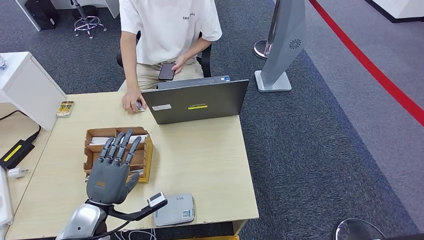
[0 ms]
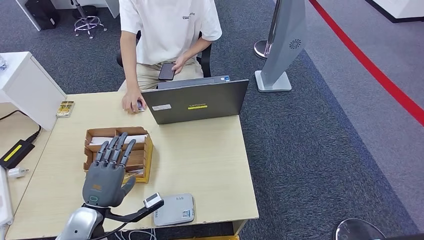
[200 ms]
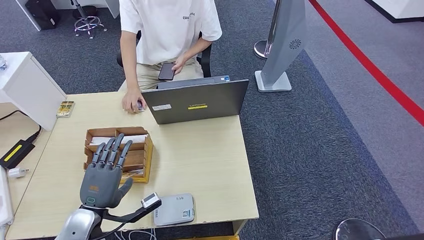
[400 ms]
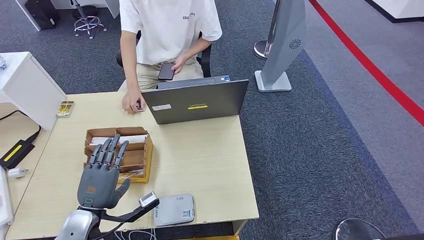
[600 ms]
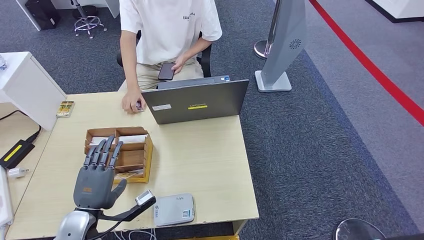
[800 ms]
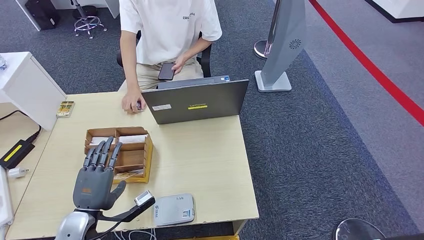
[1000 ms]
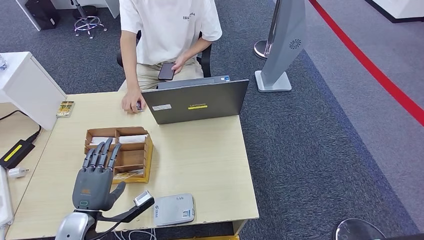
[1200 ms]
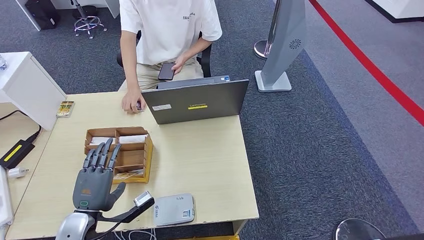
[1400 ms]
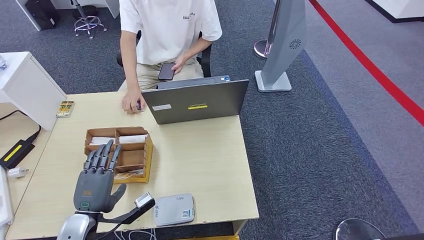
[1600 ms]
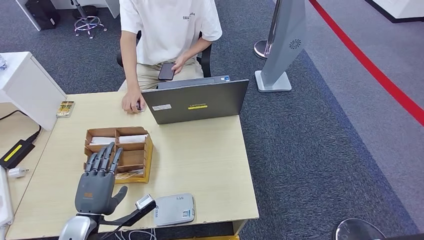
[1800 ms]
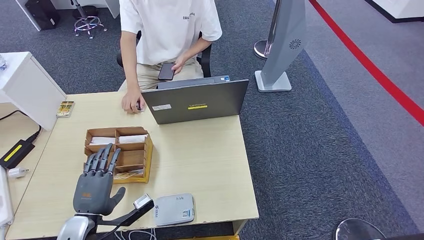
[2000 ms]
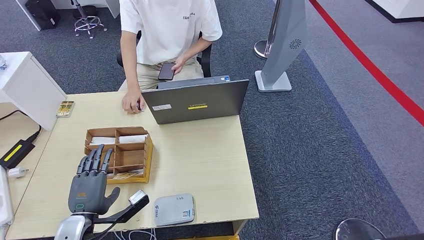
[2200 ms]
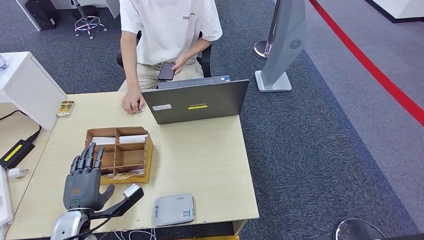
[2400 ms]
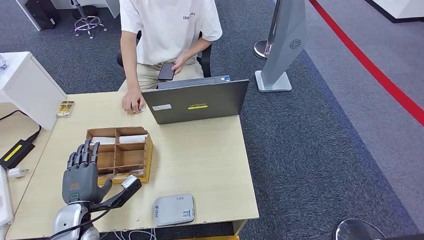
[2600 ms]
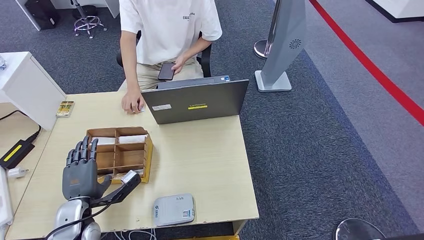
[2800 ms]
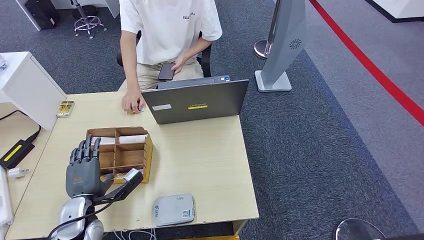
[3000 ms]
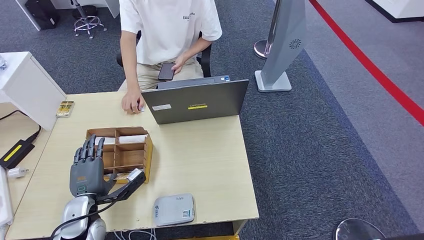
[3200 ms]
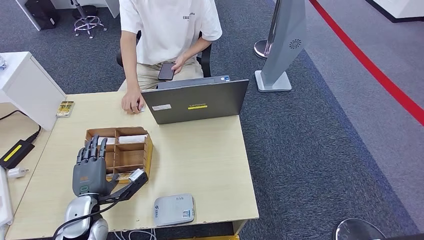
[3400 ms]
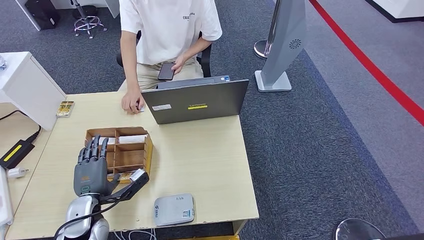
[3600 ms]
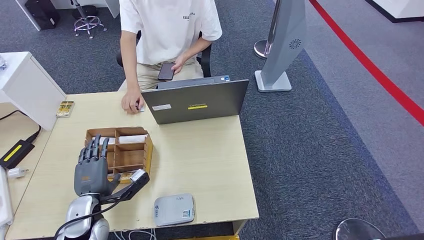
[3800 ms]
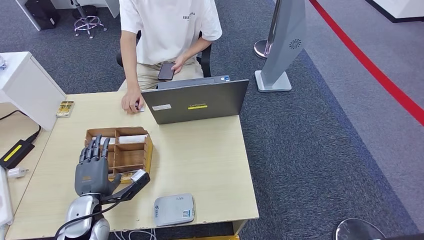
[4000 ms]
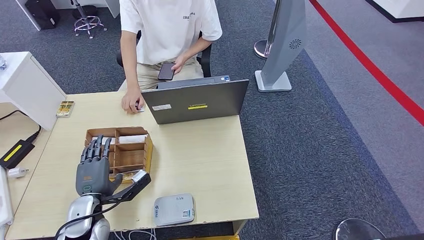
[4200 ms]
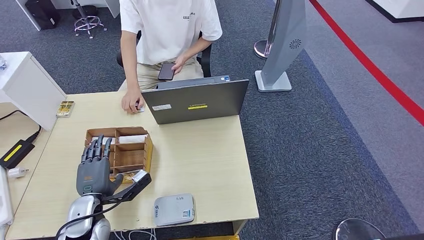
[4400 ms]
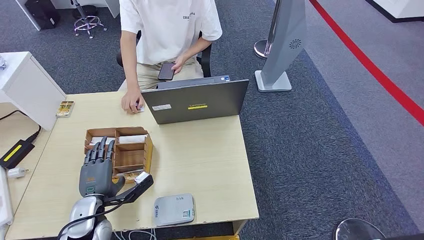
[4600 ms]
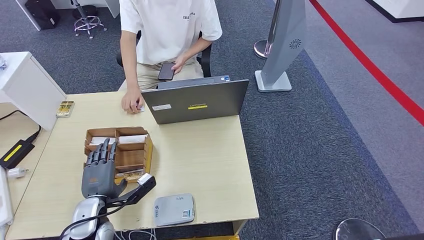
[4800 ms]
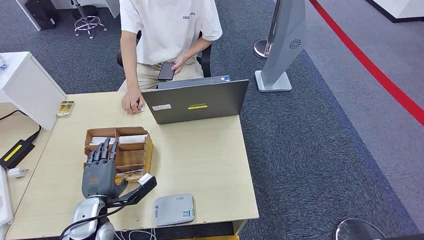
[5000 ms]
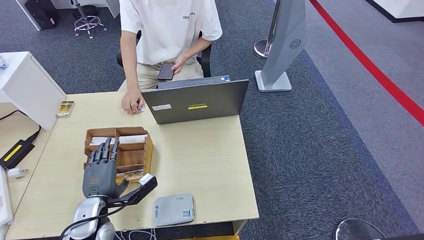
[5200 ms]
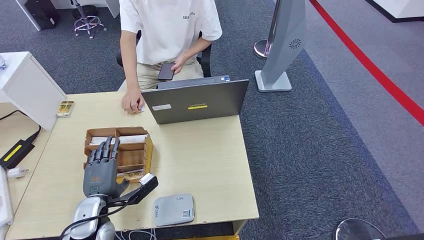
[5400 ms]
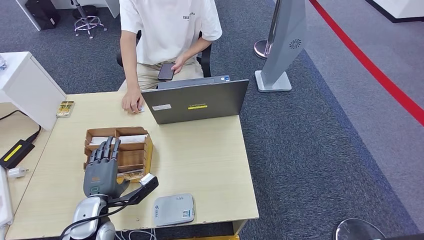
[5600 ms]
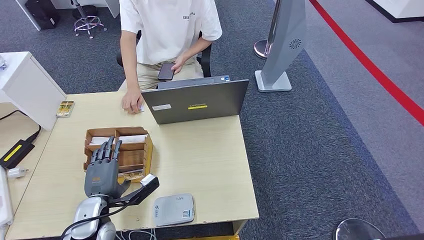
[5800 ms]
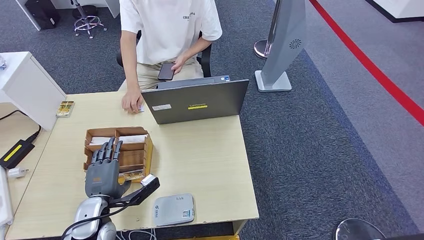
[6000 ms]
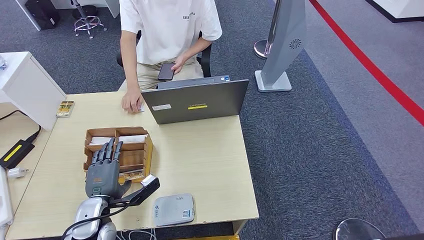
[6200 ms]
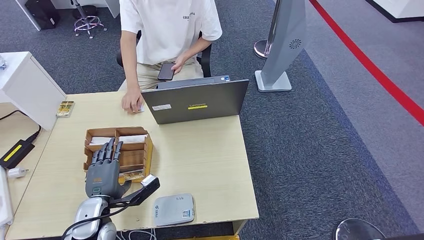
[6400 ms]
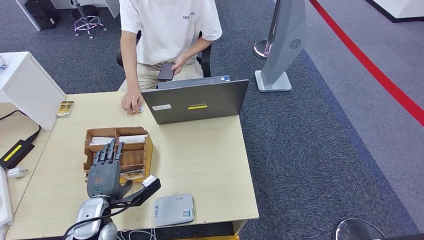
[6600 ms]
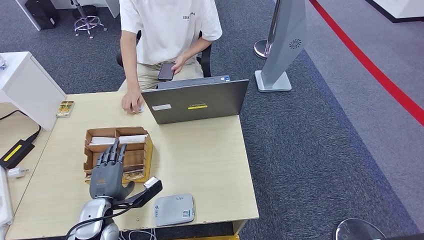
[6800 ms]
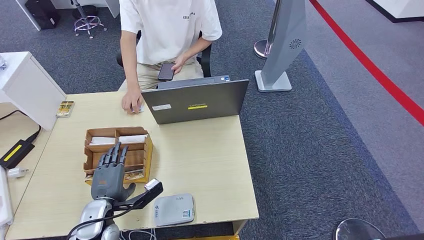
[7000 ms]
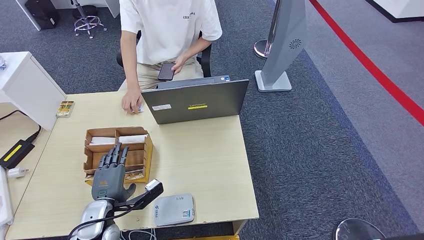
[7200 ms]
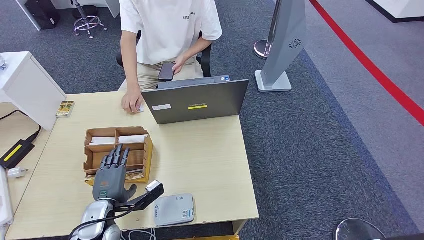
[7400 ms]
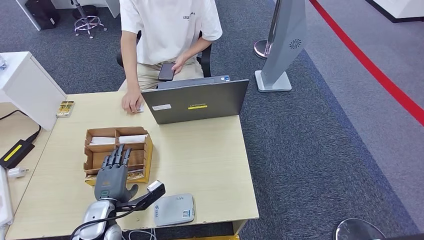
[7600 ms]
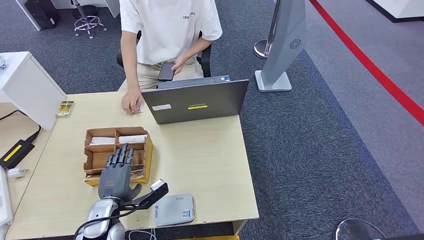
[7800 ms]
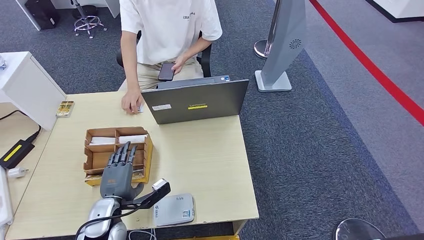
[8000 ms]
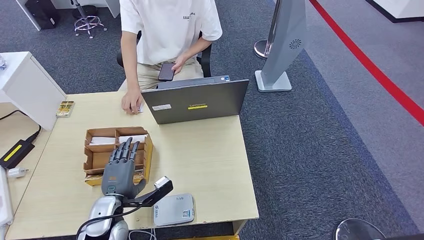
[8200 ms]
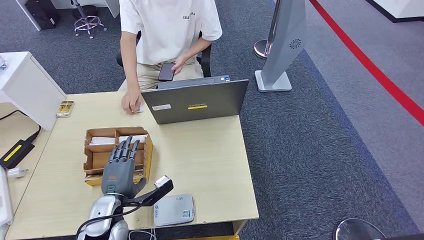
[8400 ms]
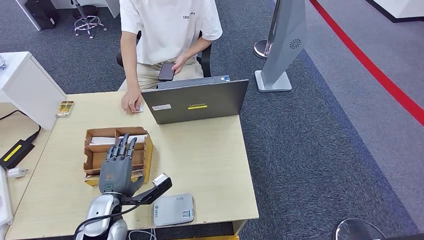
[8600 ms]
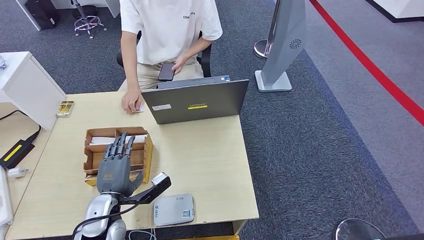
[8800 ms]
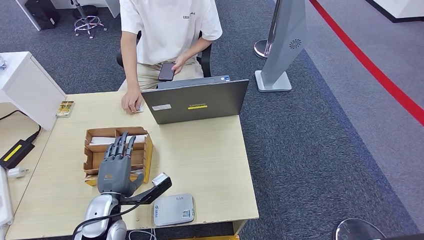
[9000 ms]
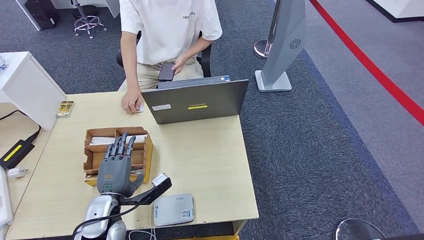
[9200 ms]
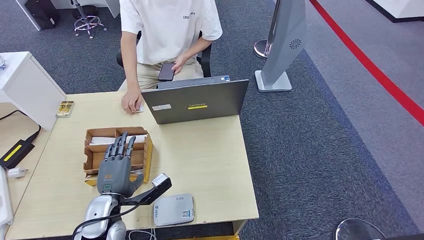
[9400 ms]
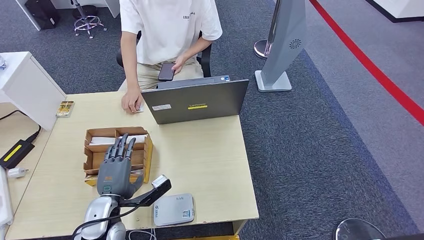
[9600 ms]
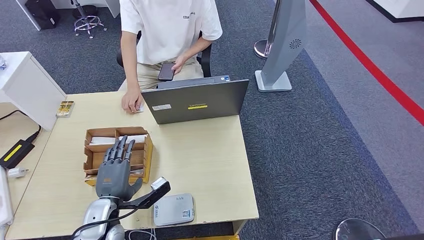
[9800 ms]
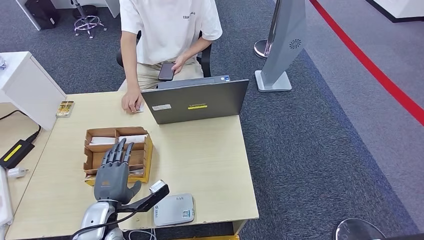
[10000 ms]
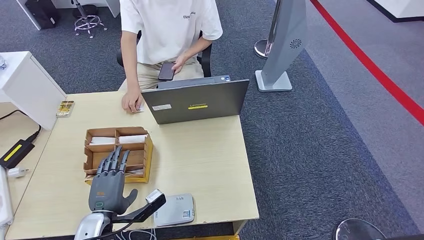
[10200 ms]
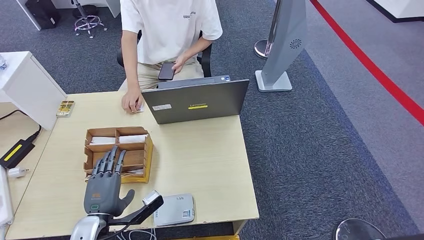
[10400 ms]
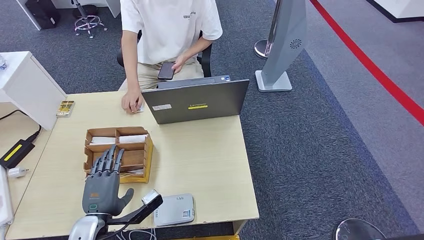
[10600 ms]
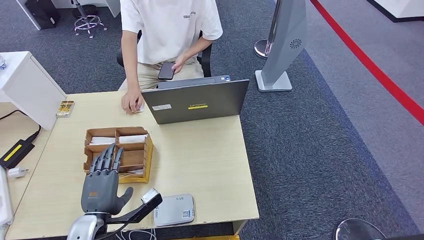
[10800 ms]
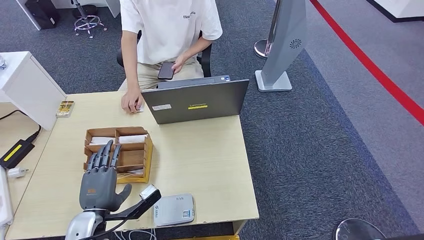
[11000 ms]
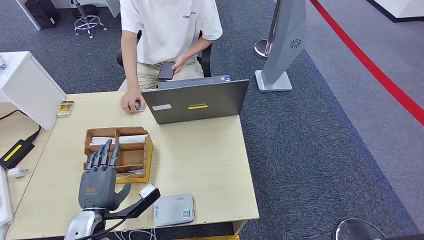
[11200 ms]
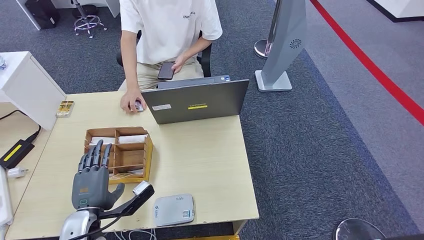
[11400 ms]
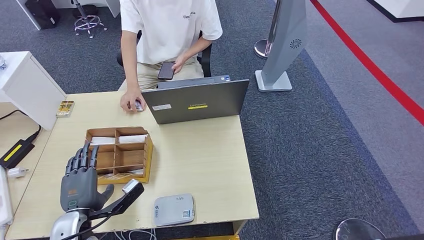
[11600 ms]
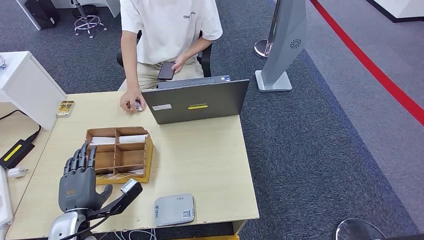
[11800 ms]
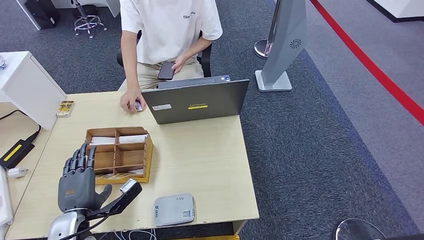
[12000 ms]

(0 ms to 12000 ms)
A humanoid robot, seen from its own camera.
0 ms - 1600 ms: The hands make only small movements.
1600 ms - 3000 ms: The left hand ends up approximately 5 cm from where it was.
3000 ms - 7600 ms: There are only small adjustments of the hands.
7600 ms - 9000 ms: The hands move only a little.
9000 ms - 10400 ms: The left hand changes place by about 5 cm.
10400 ms - 12000 ms: The hands stay close to where they were, moving slightly.

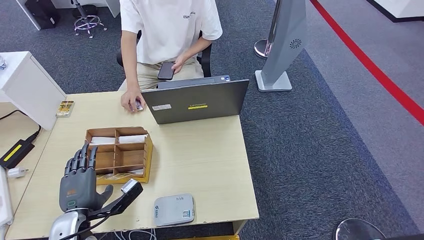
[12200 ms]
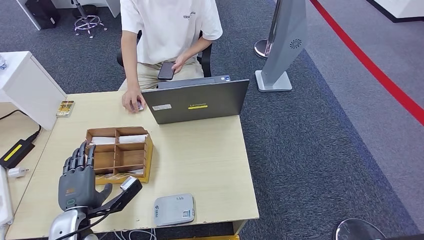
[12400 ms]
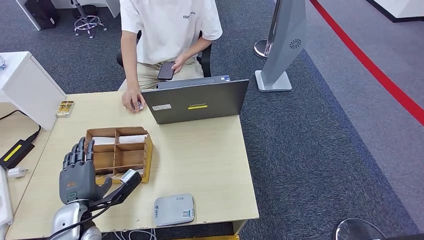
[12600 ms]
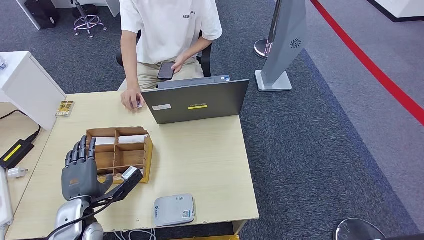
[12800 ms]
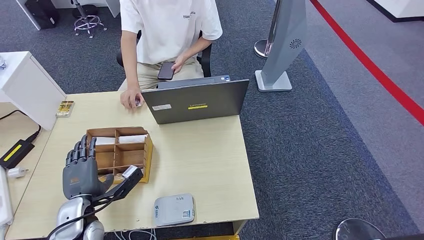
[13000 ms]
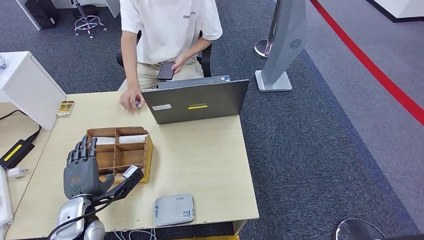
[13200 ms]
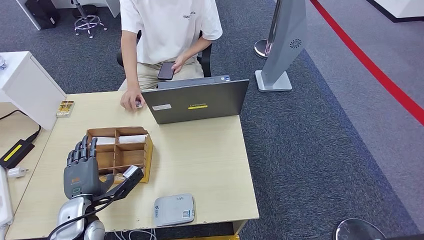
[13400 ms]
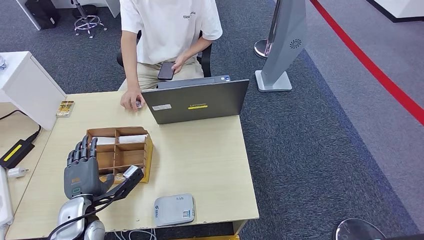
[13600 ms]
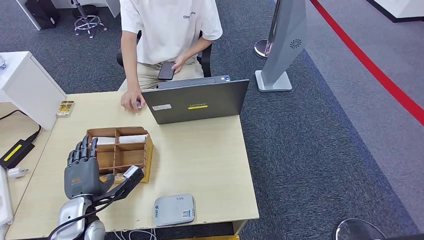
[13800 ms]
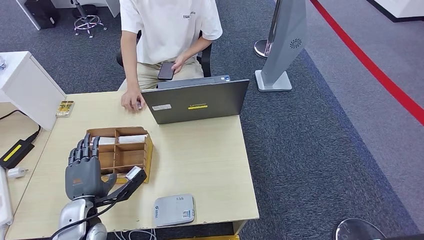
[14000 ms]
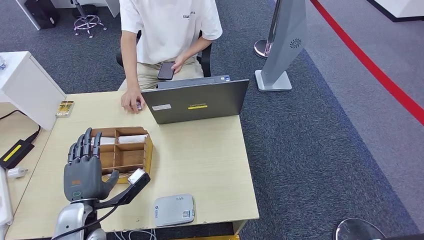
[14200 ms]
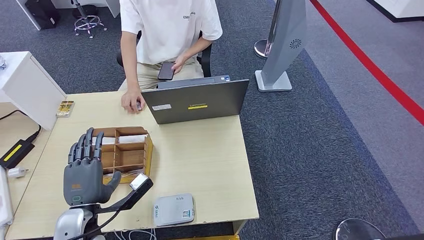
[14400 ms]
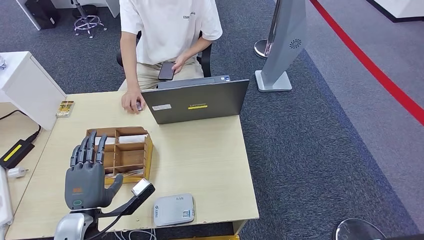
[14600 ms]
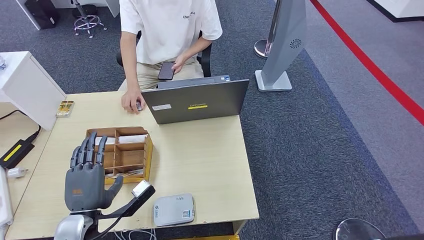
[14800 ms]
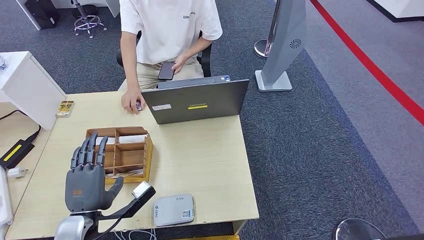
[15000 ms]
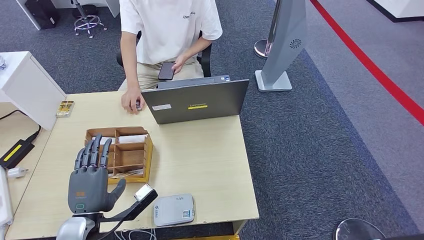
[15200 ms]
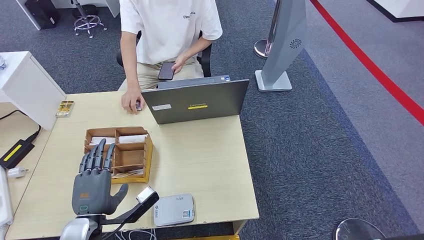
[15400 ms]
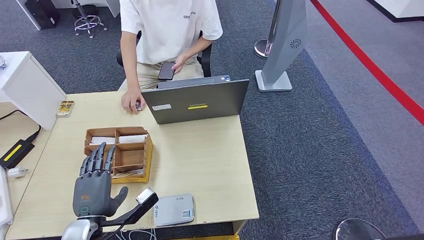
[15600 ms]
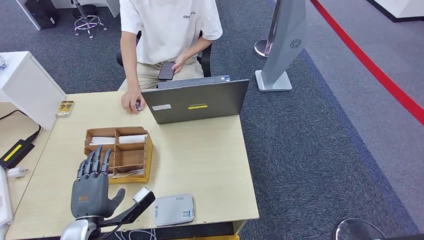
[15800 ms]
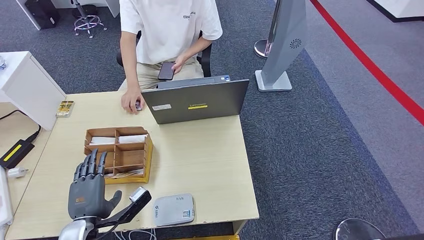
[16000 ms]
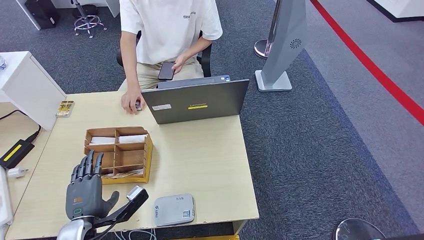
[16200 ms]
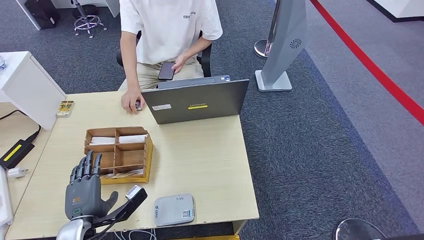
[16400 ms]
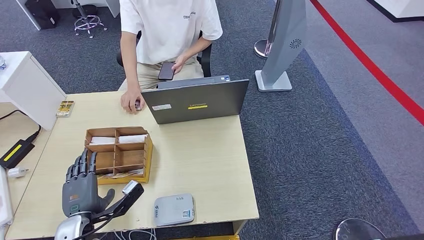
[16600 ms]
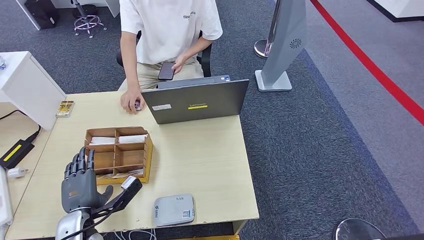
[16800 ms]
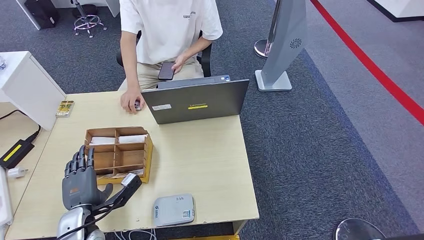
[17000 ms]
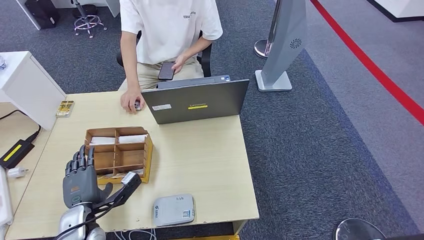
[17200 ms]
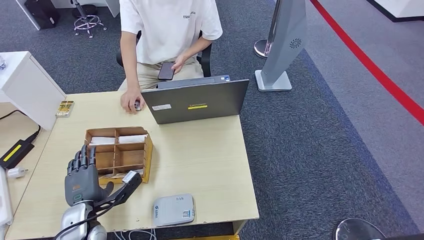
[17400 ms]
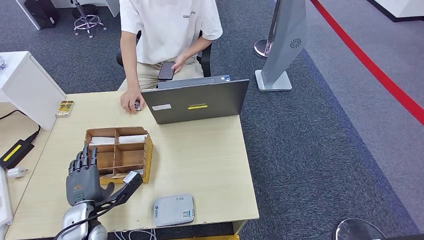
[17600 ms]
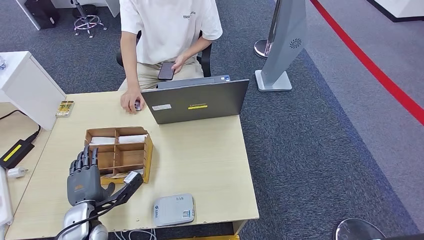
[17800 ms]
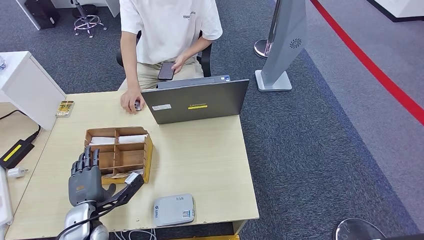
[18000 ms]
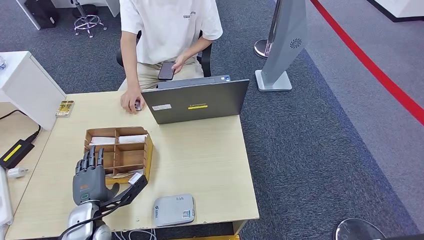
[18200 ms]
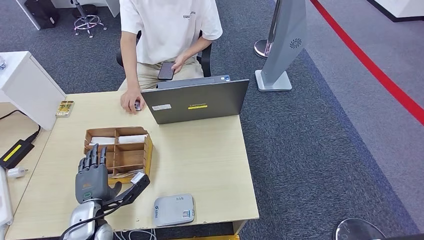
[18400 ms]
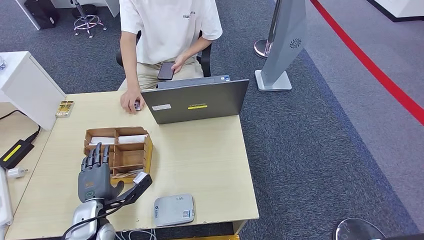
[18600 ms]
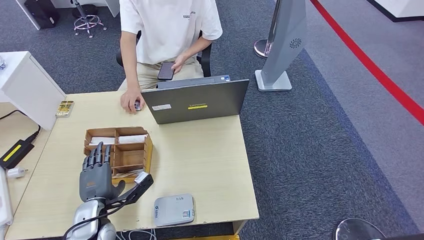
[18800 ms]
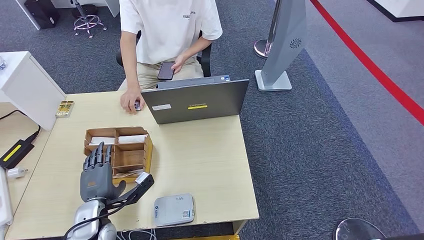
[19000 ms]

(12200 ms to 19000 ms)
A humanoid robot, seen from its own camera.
12200 ms - 13600 ms: The hands move only a little.
13600 ms - 15000 ms: The left hand heads backward, covering roughly 5 cm.
15000 ms - 16200 ms: The hands stay close to where they were, moving slightly.
16200 ms - 17600 ms: The left hand ends up roughly 5 cm from where it was.
17600 ms - 19000 ms: The hands move only a little.
